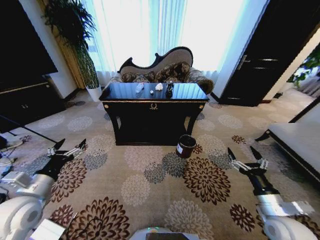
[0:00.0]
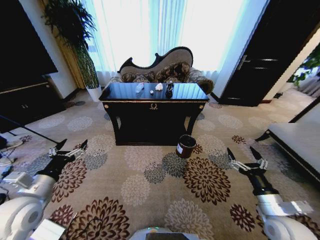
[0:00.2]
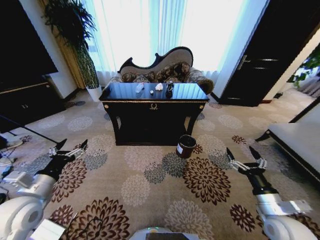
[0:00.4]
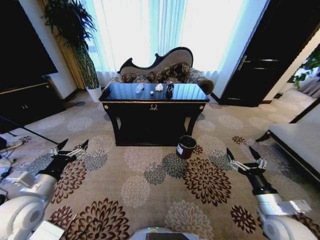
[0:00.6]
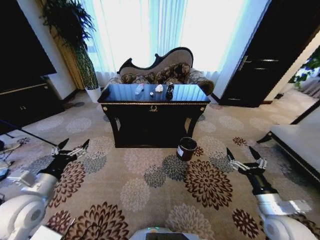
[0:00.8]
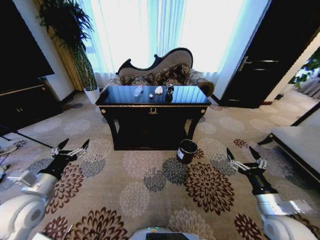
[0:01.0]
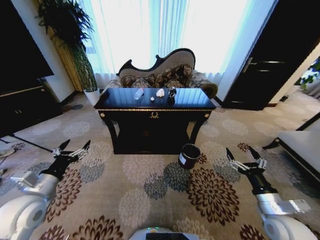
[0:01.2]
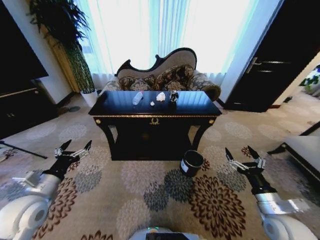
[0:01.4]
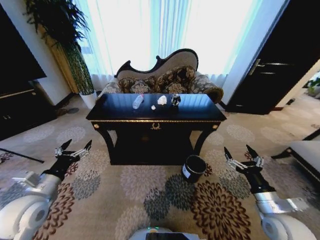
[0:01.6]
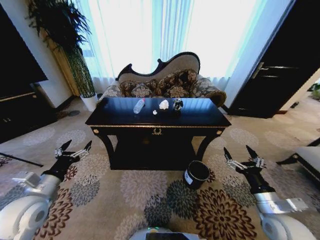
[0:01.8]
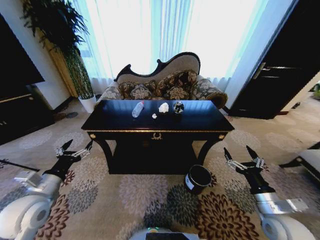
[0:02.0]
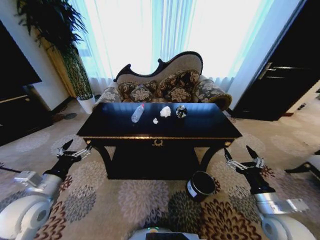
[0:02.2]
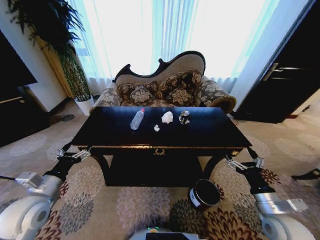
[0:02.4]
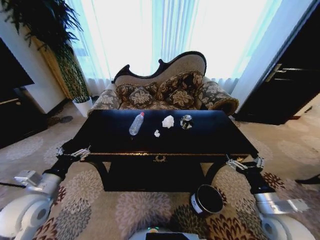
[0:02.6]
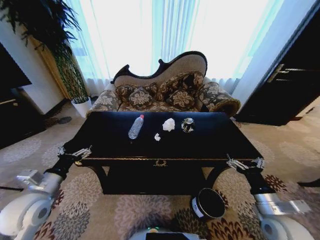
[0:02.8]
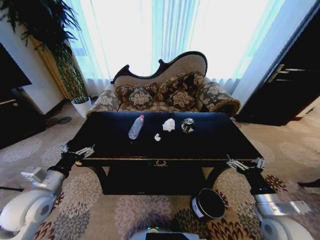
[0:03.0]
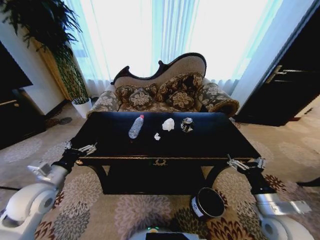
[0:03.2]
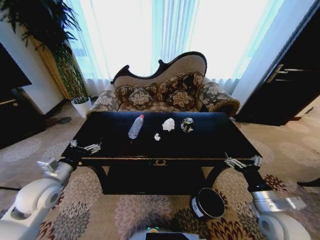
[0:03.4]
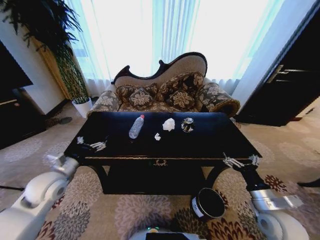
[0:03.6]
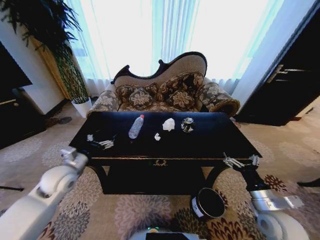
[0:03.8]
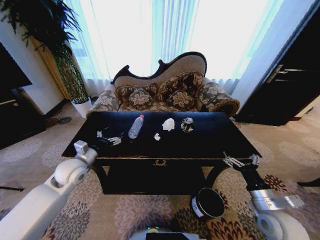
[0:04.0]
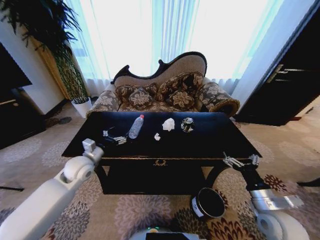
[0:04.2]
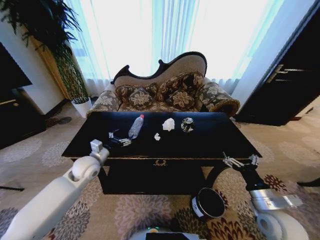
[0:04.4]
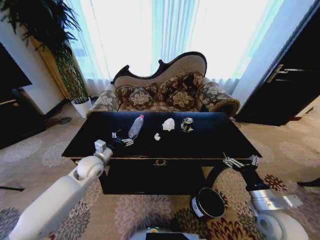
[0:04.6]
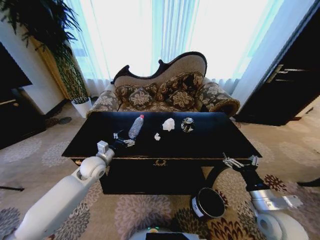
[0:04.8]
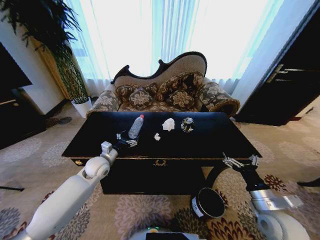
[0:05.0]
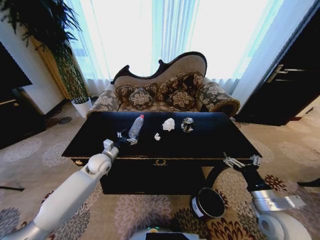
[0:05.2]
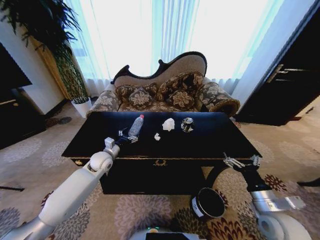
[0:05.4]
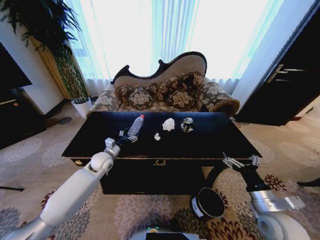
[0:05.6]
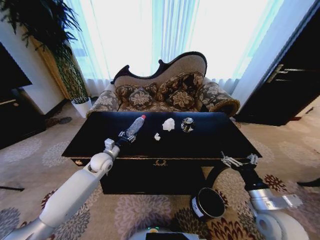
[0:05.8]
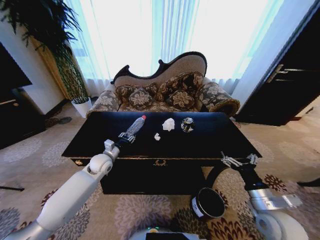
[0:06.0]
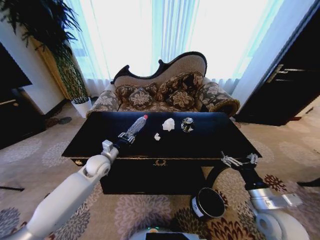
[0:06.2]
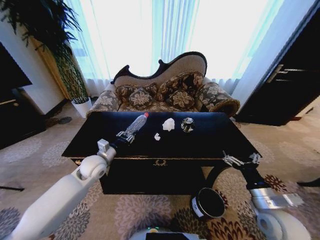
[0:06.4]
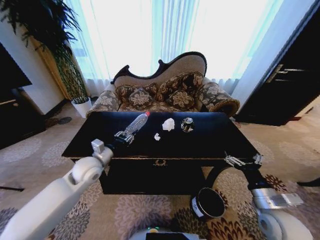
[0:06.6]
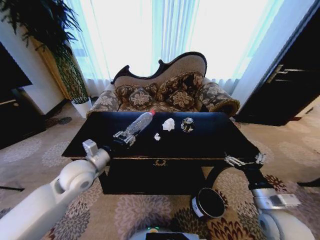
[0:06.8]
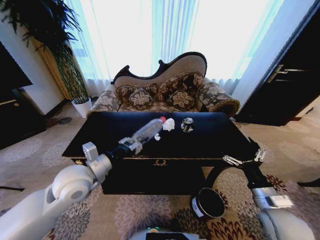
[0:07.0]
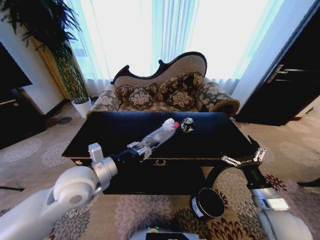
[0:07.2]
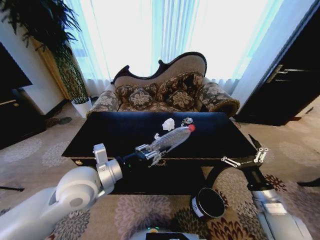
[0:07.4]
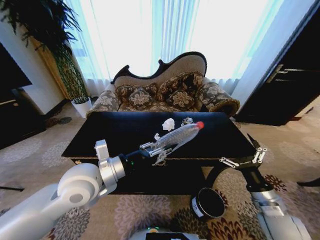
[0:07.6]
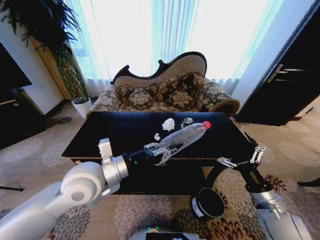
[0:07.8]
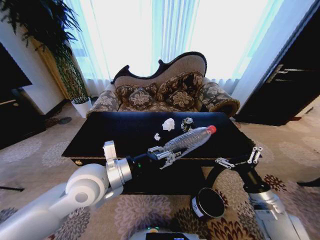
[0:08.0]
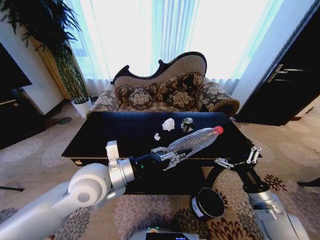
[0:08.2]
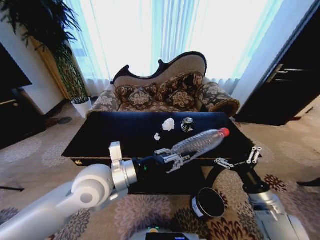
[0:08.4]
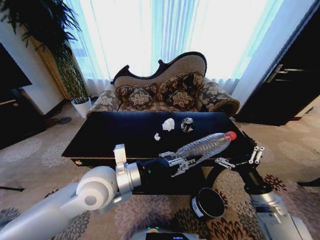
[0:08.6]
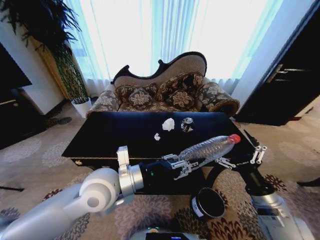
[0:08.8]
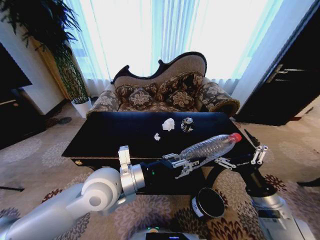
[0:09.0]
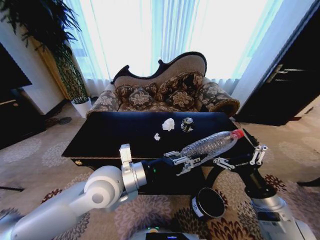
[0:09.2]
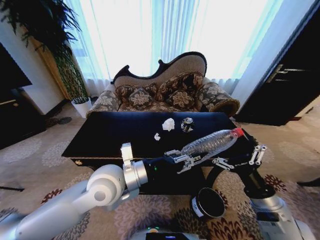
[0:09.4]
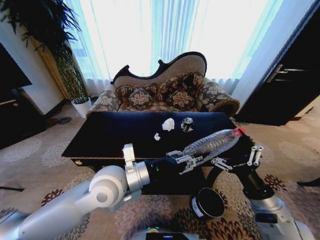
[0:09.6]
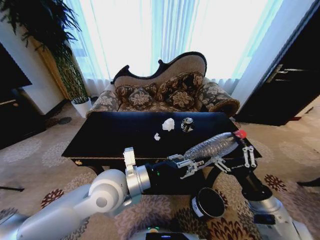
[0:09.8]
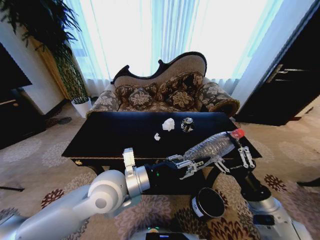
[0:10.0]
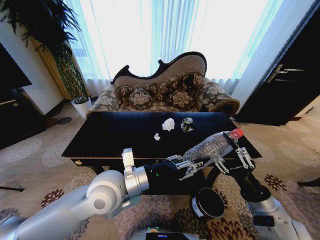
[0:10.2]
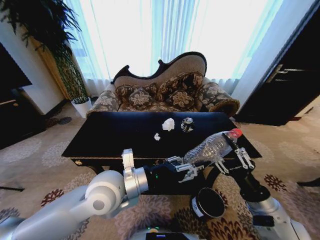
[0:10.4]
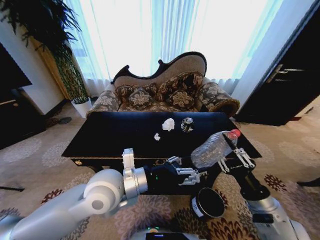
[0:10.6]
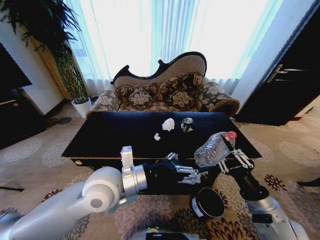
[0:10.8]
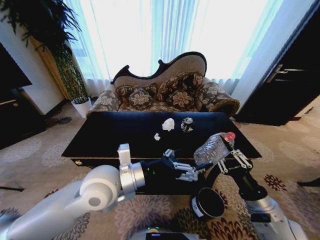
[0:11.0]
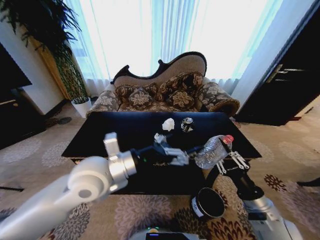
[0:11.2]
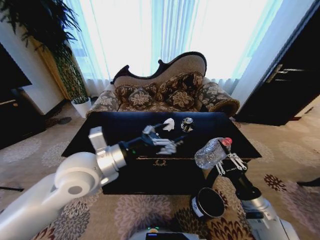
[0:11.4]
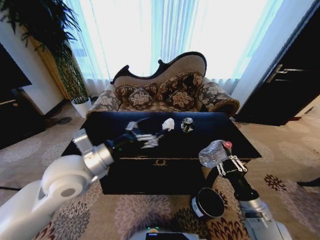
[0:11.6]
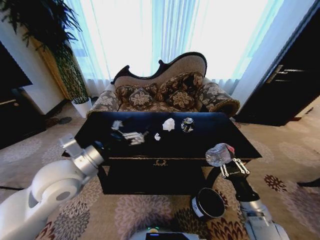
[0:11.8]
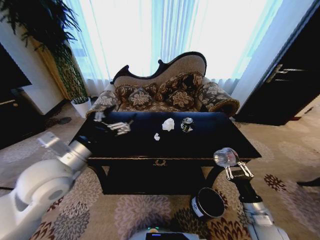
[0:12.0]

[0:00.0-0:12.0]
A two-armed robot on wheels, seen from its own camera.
Task of the whole recording: Move to the front of the table and place the trash on the table into the trash bin.
0:03.0 to 0:04.4: The left gripper heads forward and to the right, covering approximately 15 cm.
0:04.4 to 0:06.0: The left gripper heads downward, covering about 5 cm, and closes up.
0:06.0 to 0:07.6: The left gripper travels upward and backward by some 25 cm.
0:07.6 to 0:09.0: The left gripper goes some 5 cm to the right.
0:09.0 to 0:10.4: The right gripper closes its fingers.
0:10.4 to 0:12.0: The right gripper shifts roughly 10 cm downward; the left gripper goes some 15 cm to the left, and opens.

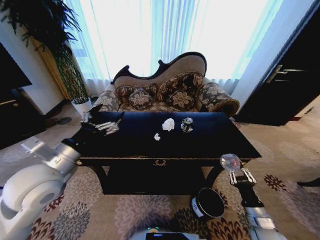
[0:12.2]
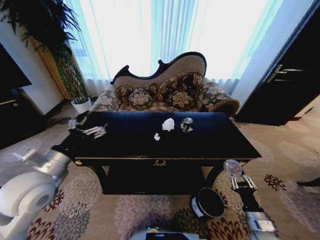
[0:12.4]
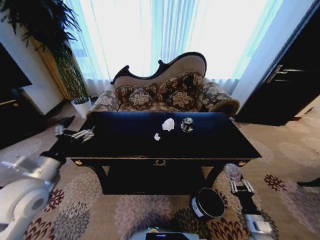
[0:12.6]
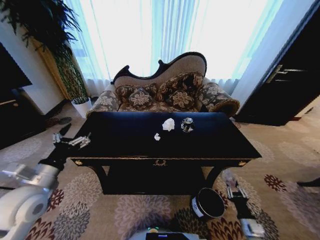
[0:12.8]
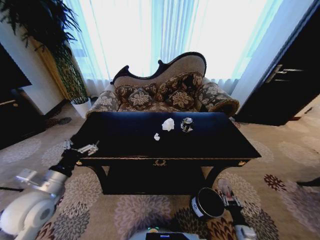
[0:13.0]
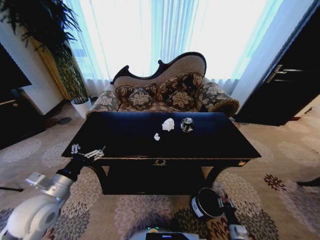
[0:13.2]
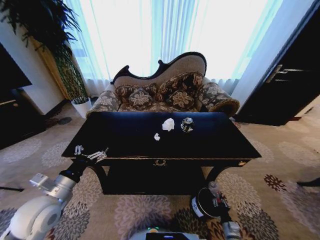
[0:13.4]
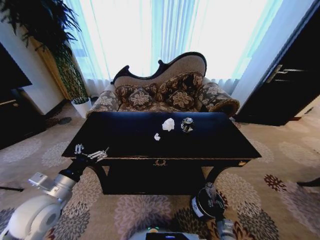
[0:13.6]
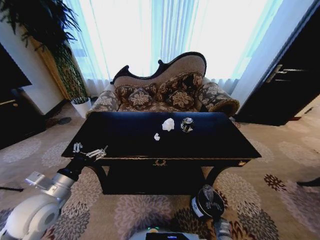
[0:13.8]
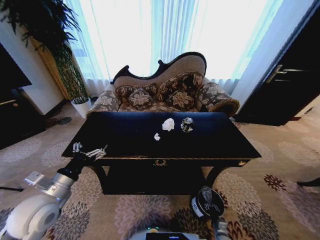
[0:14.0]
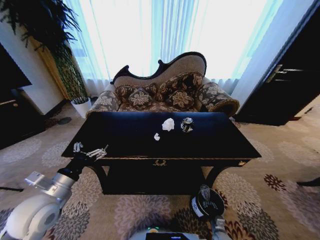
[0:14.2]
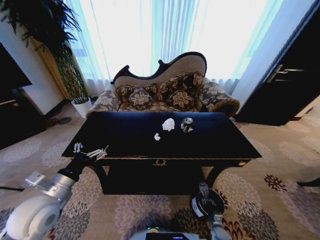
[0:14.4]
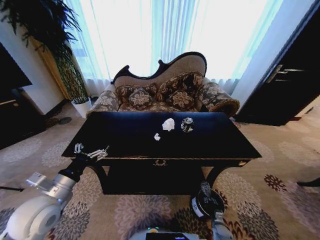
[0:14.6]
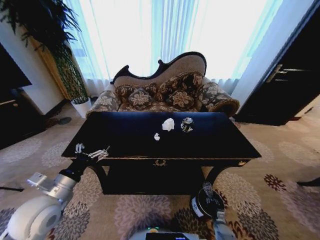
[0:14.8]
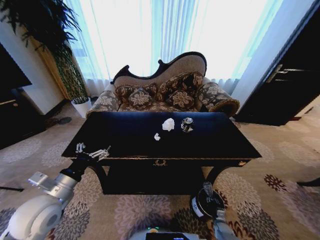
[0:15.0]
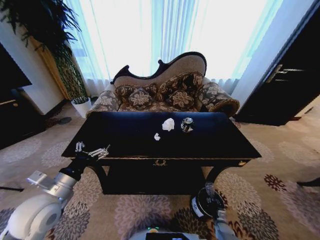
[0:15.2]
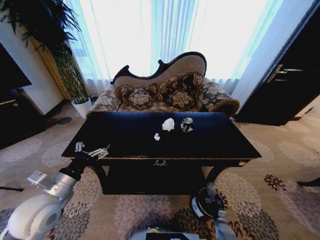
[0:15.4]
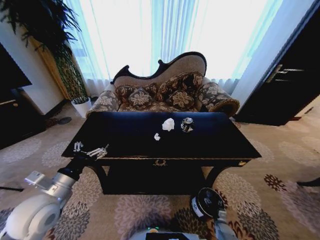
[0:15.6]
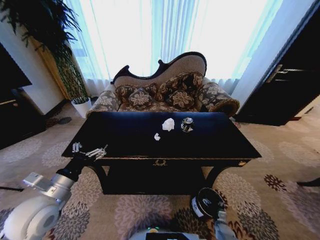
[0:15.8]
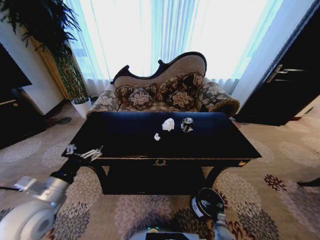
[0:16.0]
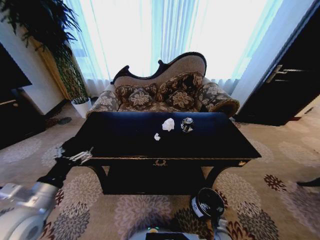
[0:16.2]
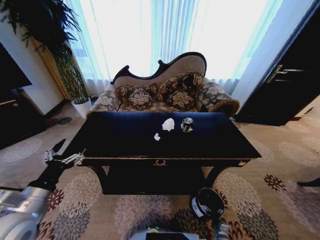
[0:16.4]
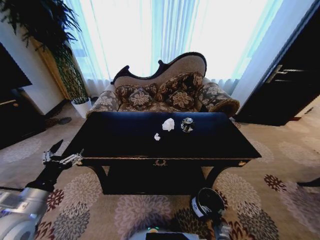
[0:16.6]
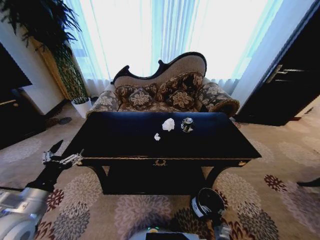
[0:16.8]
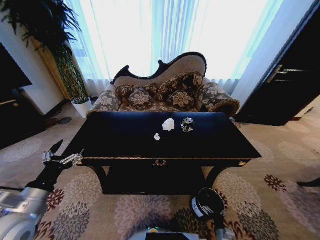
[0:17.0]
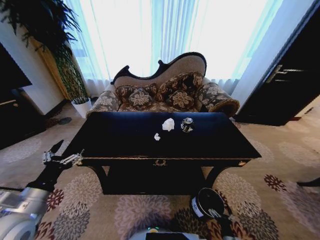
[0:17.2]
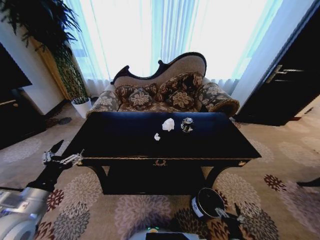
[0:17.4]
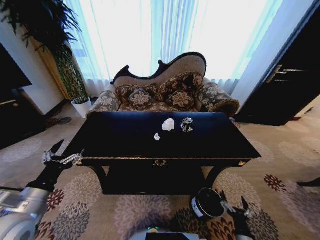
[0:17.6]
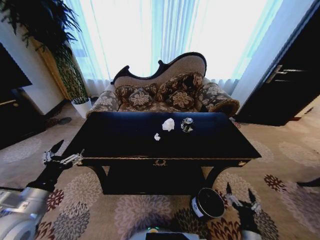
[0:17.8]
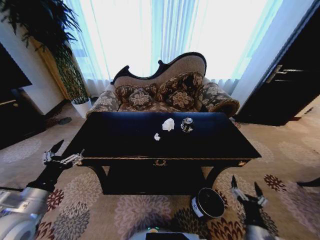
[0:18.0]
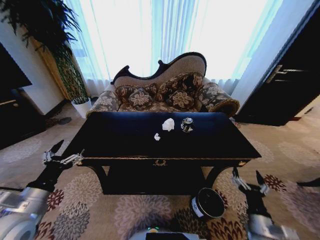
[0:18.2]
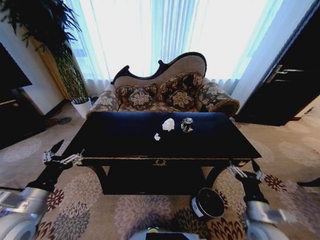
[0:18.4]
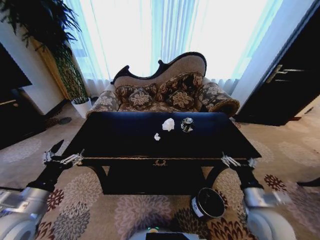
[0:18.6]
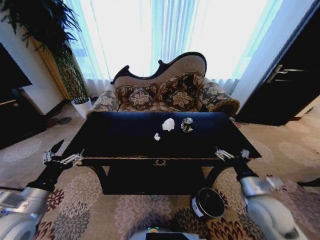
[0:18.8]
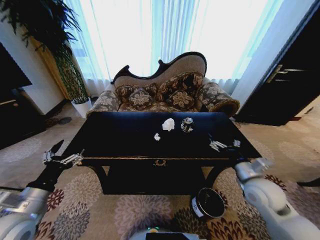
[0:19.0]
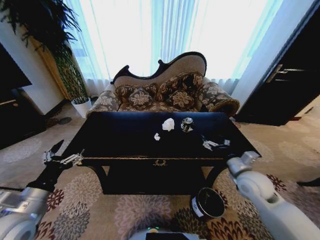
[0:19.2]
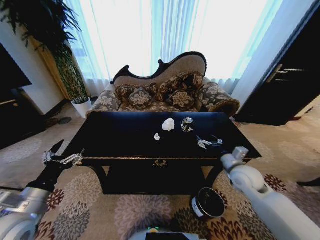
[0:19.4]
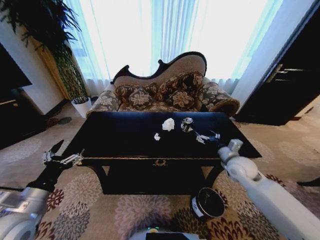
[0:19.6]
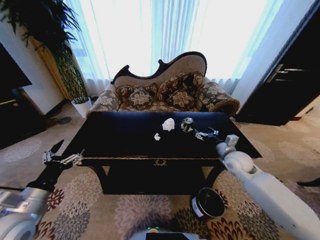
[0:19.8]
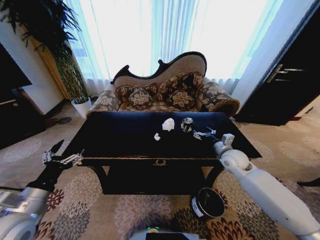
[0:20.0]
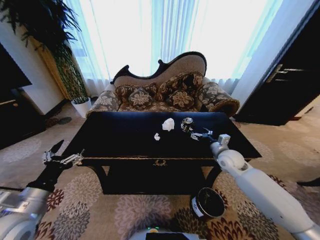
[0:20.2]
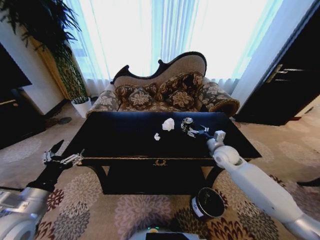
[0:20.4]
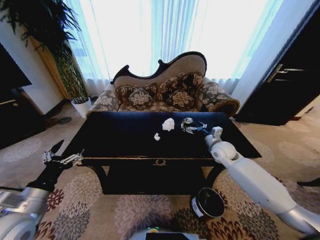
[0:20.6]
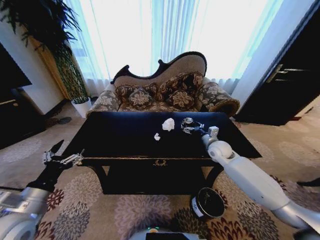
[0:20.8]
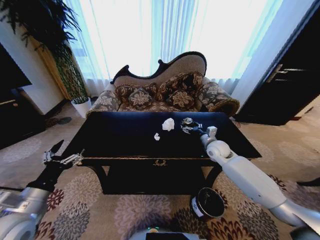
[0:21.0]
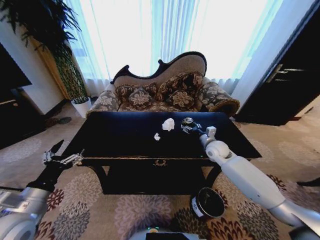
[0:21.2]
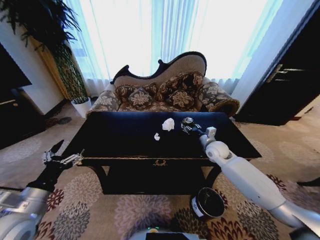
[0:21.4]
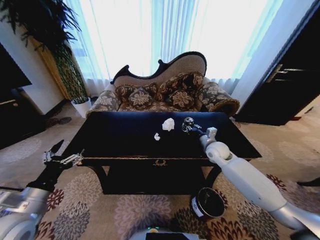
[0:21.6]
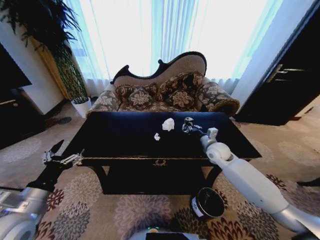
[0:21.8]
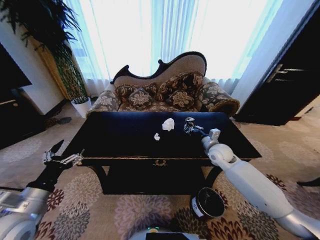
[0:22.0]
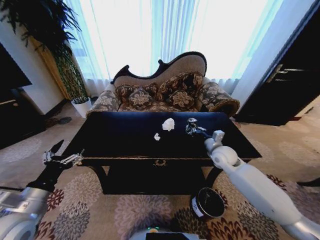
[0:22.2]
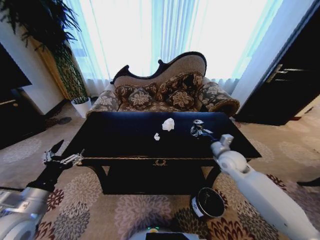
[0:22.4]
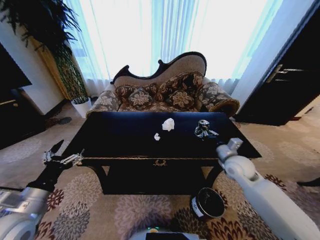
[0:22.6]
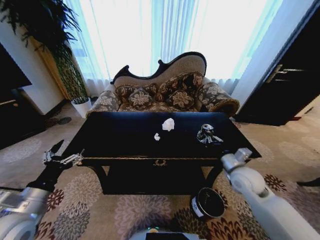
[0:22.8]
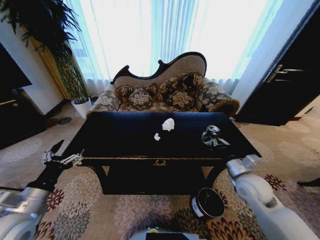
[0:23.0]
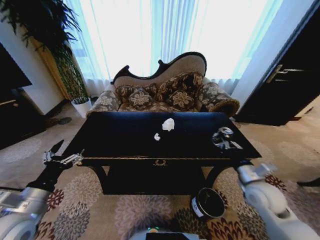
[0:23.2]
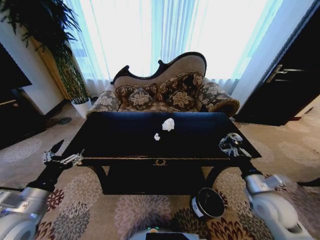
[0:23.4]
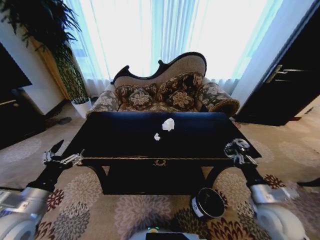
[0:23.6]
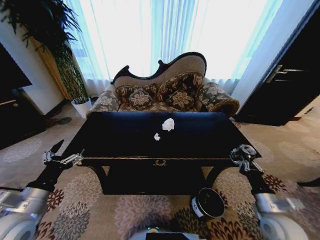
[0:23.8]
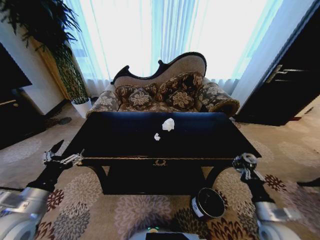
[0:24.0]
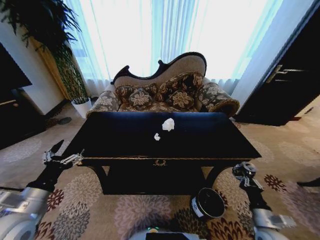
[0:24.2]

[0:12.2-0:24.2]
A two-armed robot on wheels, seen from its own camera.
Task of the whole recording: Move to the front of the table and place the trash on the table into the trash bin.
0:12.2 to 0:13.8: The right gripper travels downward by roughly 25 cm. Meanwhile the left gripper is displaced downward by roughly 10 cm.
0:15.2 to 0:16.6: The right gripper travels backward by roughly 5 cm, and opens its fingers, while the left gripper changes place by some 5 cm.
0:16.6 to 0:18.2: The right gripper heads upward, covering some 30 cm.
0:18.2 to 0:19.8: The right gripper is displaced forward and upward by about 30 cm.
0:19.8 to 0:21.2: The right gripper goes some 5 cm forward.
0:21.2 to 0:22.6: The right gripper goes approximately 10 cm backward, and closes.
0:22.6 to 0:24.2: The right gripper shifts roughly 25 cm backward and downward.
